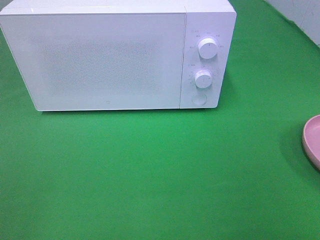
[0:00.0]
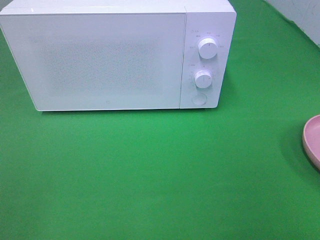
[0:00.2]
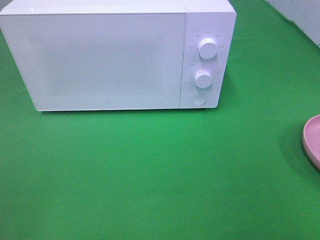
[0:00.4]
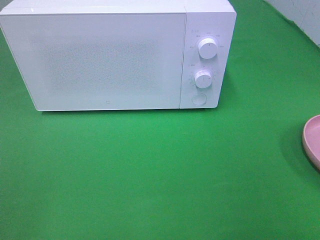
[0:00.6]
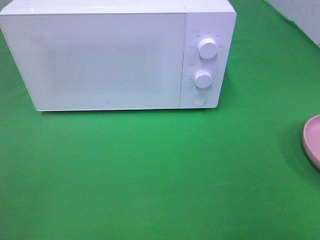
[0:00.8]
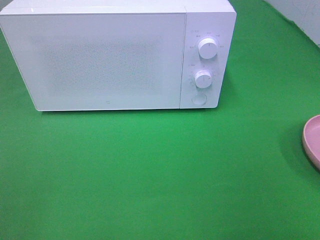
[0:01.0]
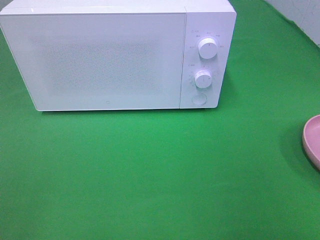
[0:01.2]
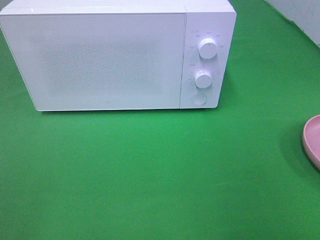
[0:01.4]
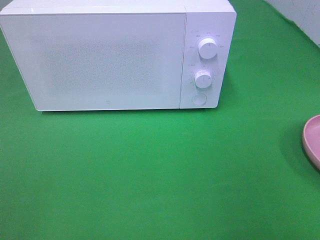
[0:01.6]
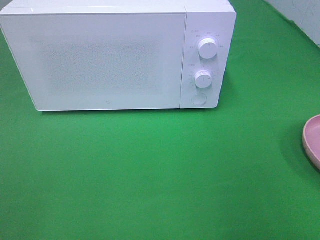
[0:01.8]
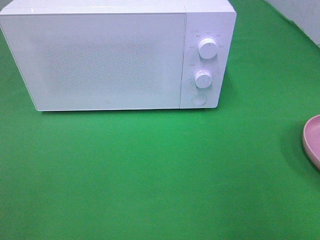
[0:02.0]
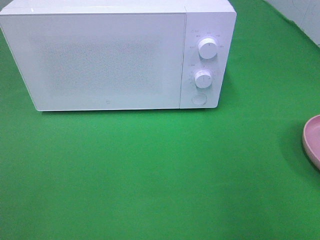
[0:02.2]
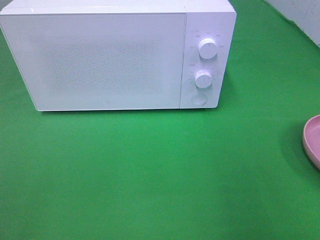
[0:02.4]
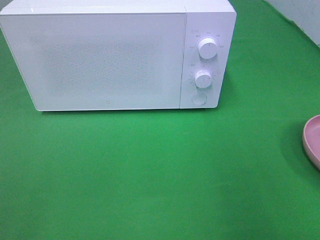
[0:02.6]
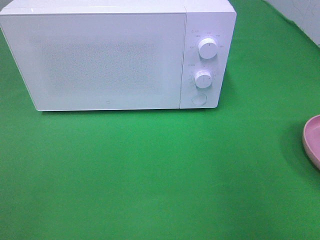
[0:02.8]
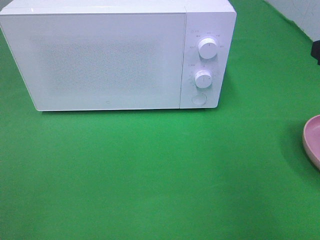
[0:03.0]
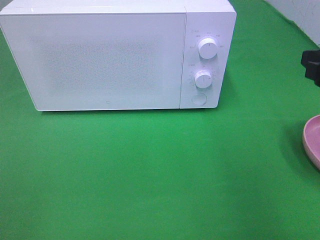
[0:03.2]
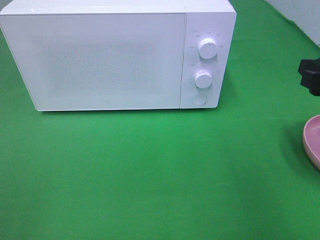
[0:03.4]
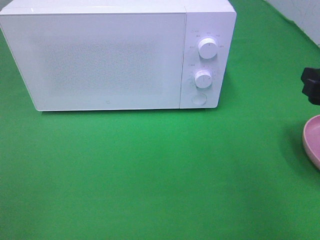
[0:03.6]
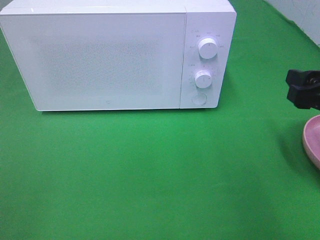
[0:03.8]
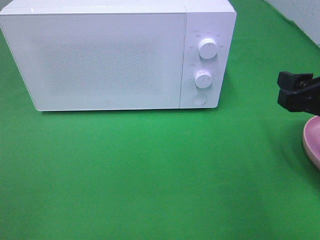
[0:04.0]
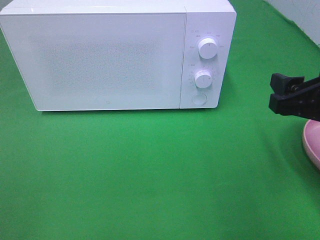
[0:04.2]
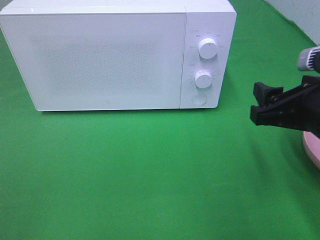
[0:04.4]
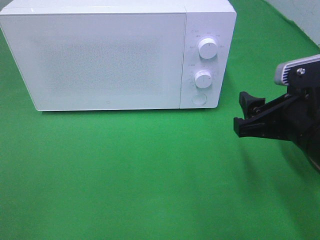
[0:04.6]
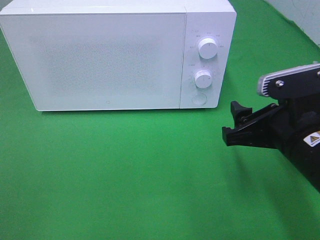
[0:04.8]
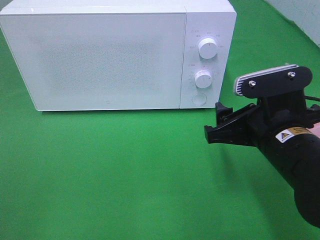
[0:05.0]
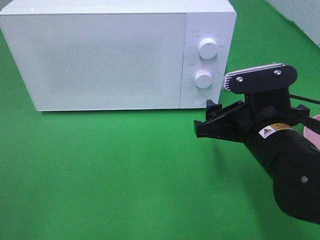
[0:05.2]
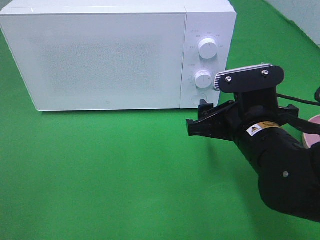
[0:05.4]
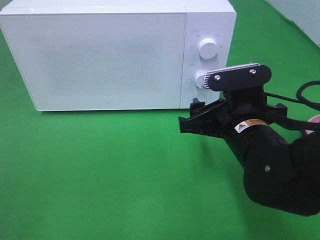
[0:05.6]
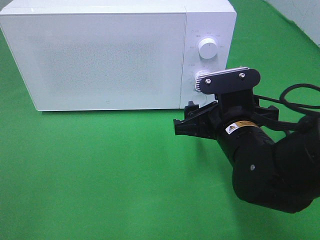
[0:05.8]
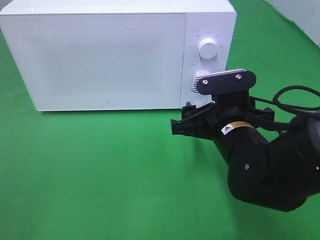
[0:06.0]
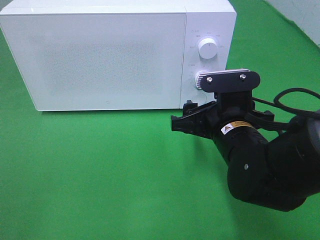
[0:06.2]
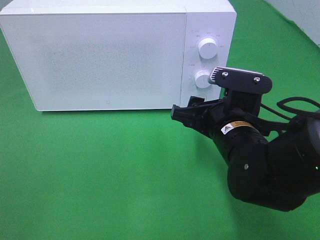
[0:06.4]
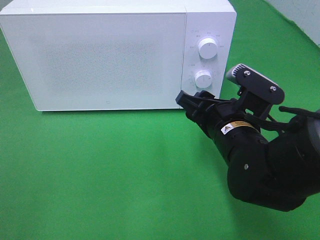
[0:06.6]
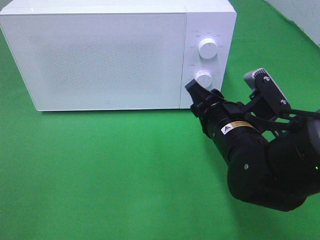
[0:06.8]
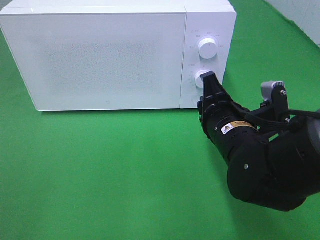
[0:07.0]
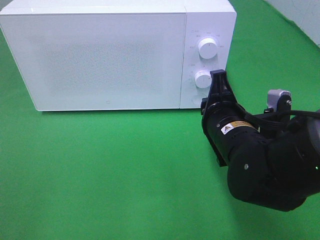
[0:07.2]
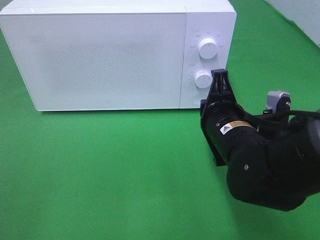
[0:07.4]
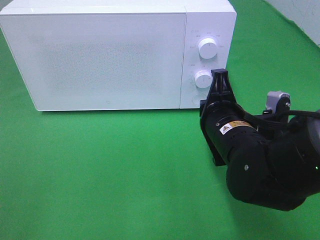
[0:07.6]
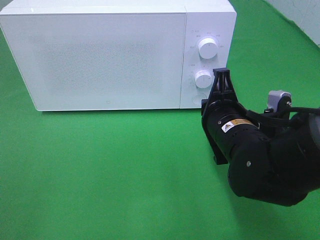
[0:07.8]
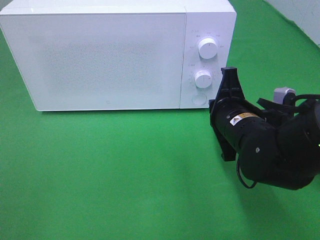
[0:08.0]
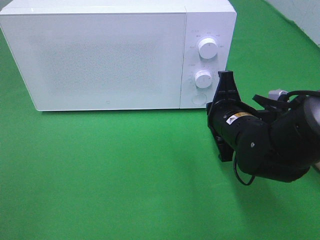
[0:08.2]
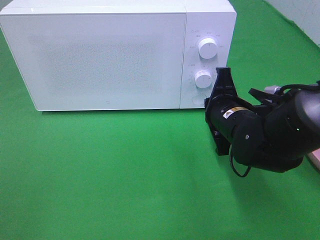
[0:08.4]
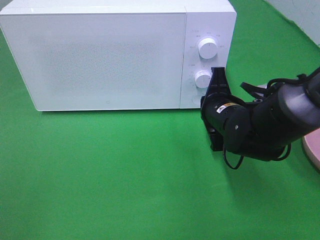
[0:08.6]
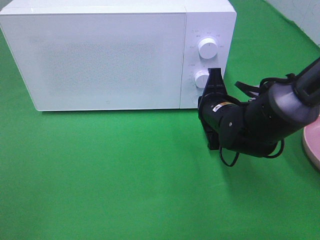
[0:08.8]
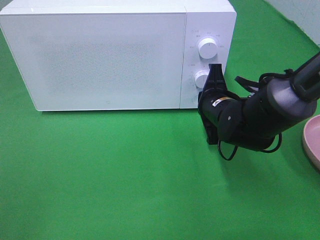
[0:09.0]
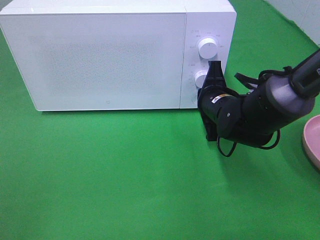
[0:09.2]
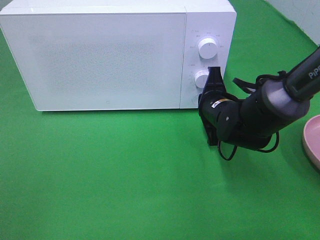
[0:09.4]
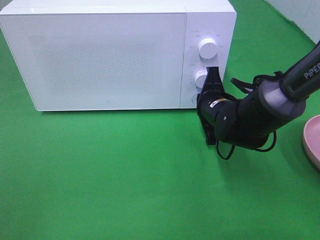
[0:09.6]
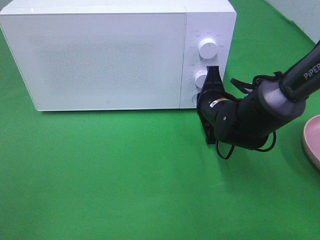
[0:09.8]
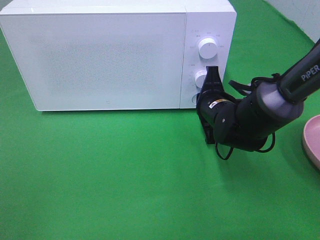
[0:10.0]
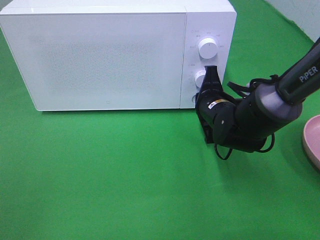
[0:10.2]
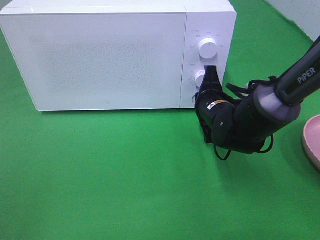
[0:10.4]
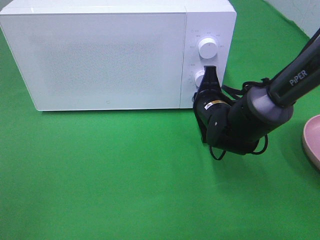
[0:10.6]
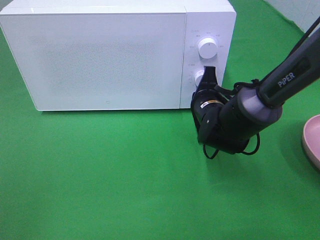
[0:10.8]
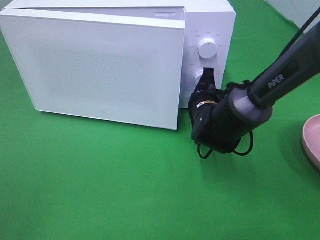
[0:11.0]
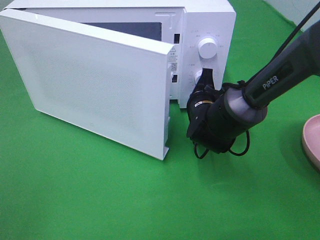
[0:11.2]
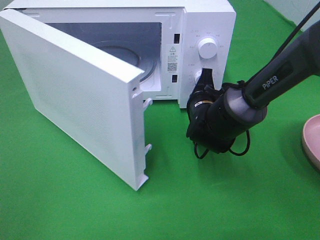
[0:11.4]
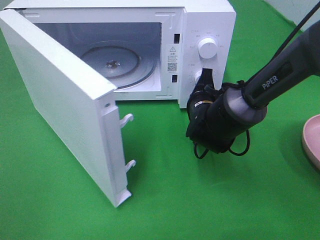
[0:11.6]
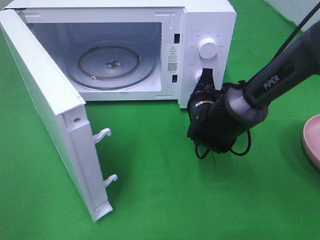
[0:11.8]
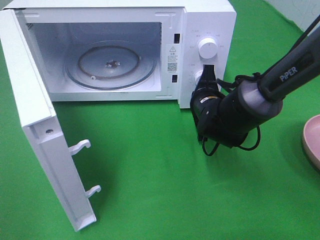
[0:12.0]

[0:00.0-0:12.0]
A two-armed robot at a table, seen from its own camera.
Task of the whole recording: Heat the burger.
0:03.0 to 0:04.4: The right gripper shifts some 10 cm downward and to the left.
0:04.4 to 0:06.0: The right gripper travels to the left and downward by approximately 10 cm.
0:06.0 to 0:07.6: The right gripper closes.
0:07.6 to 0:09.0: The right gripper shifts some 10 cm forward.
0:09.0 to 0:10.4: There are only small adjustments of the grippers.

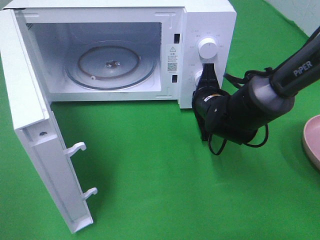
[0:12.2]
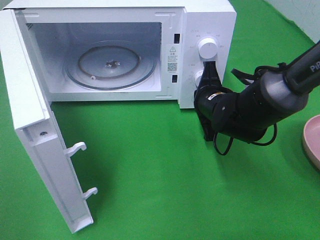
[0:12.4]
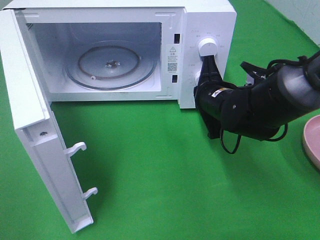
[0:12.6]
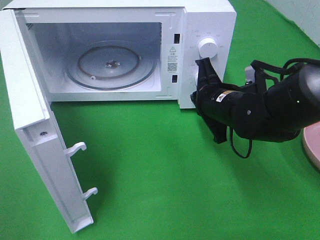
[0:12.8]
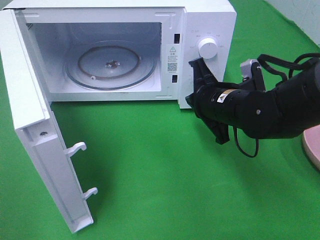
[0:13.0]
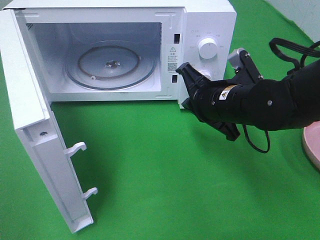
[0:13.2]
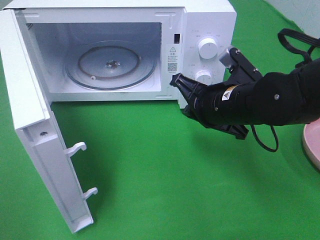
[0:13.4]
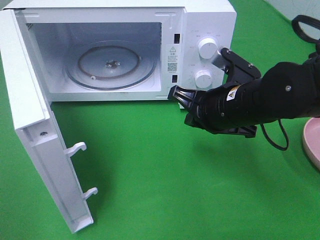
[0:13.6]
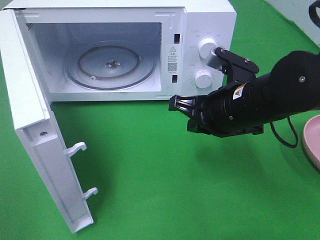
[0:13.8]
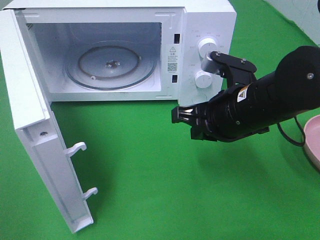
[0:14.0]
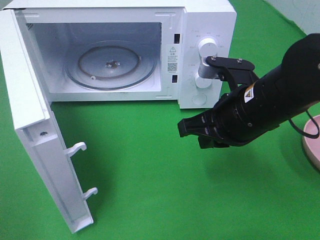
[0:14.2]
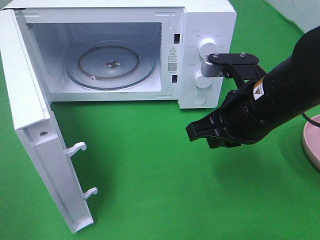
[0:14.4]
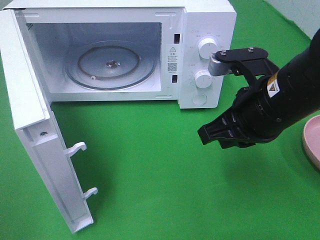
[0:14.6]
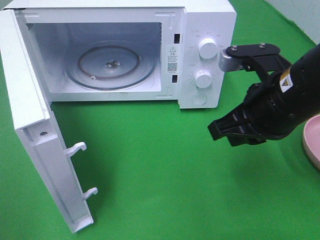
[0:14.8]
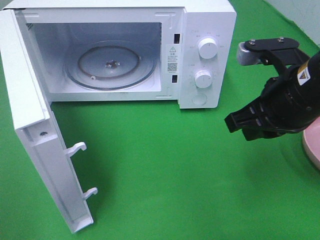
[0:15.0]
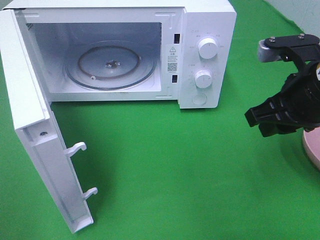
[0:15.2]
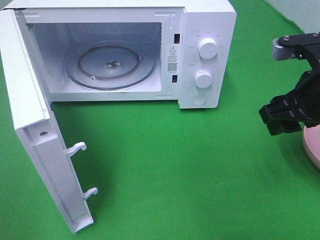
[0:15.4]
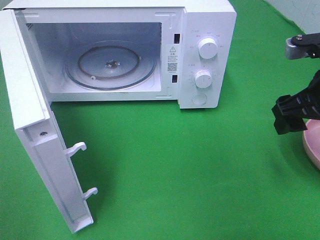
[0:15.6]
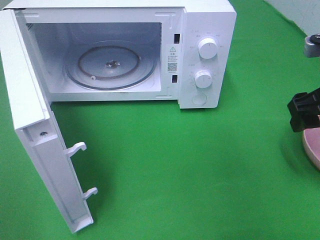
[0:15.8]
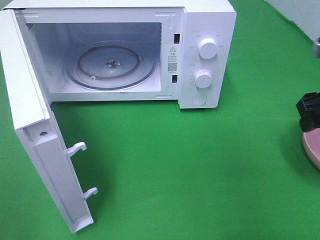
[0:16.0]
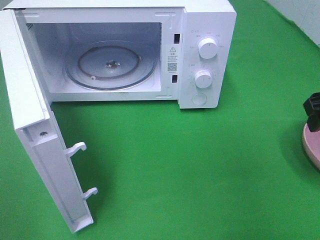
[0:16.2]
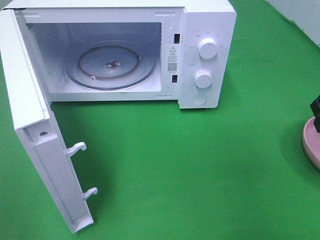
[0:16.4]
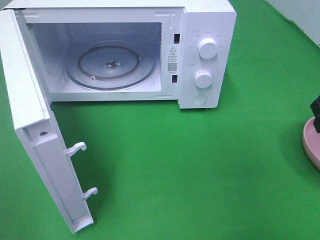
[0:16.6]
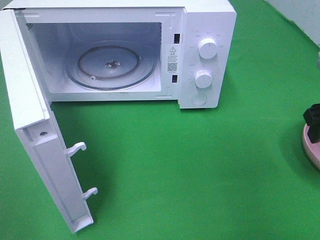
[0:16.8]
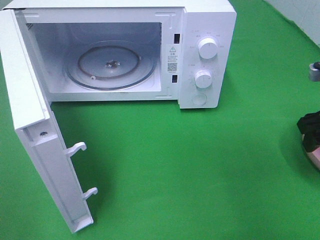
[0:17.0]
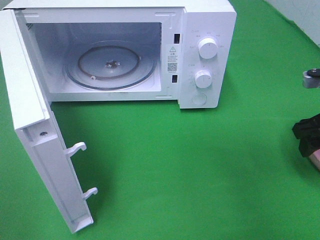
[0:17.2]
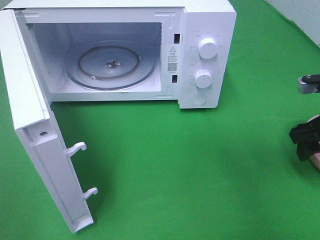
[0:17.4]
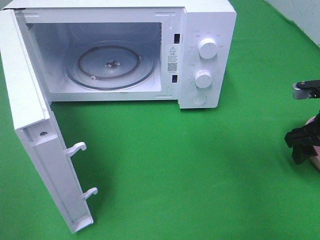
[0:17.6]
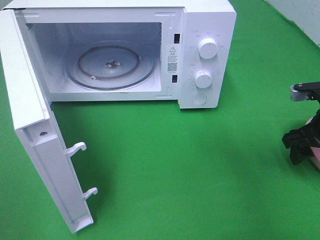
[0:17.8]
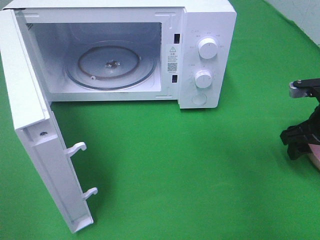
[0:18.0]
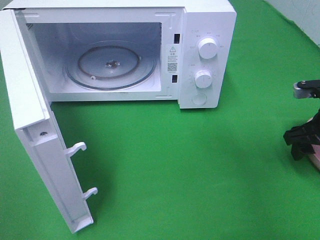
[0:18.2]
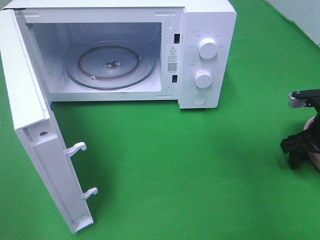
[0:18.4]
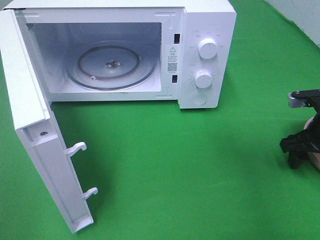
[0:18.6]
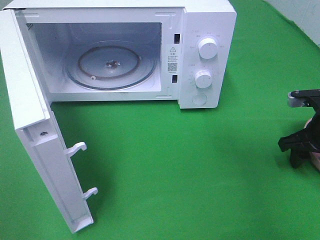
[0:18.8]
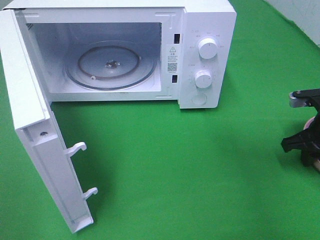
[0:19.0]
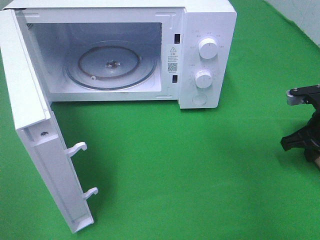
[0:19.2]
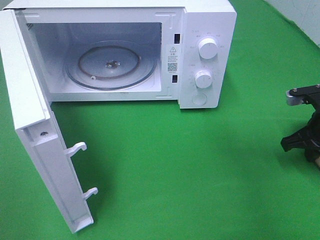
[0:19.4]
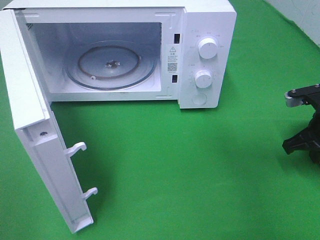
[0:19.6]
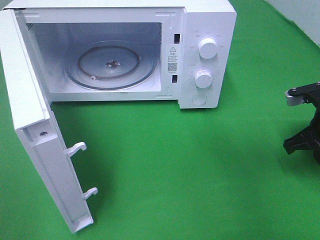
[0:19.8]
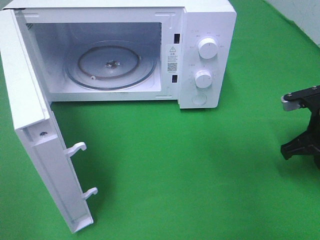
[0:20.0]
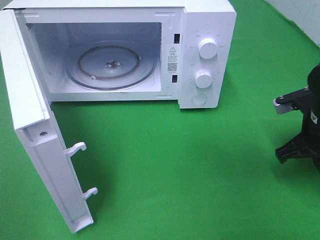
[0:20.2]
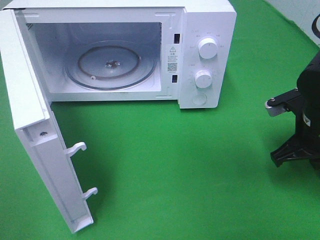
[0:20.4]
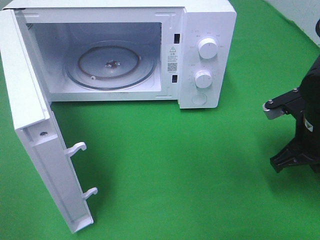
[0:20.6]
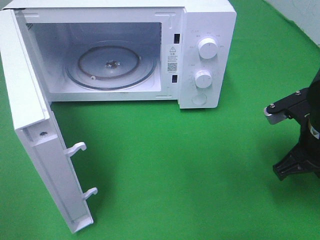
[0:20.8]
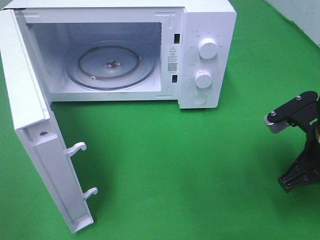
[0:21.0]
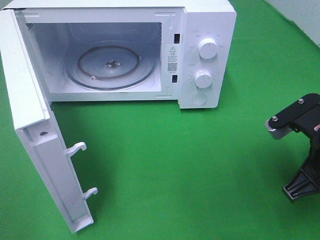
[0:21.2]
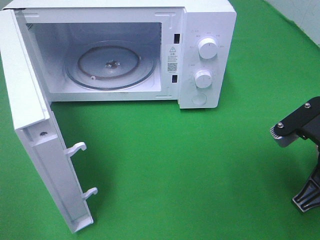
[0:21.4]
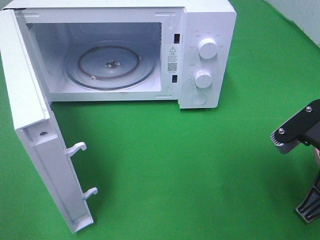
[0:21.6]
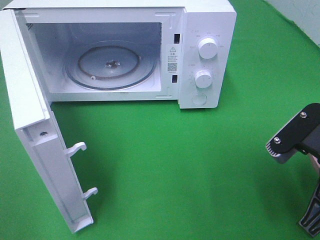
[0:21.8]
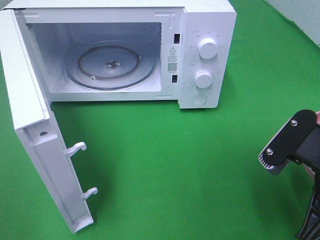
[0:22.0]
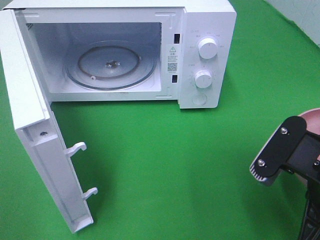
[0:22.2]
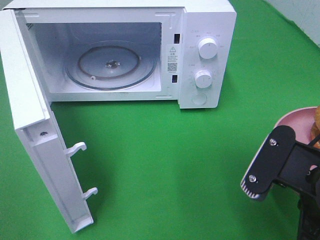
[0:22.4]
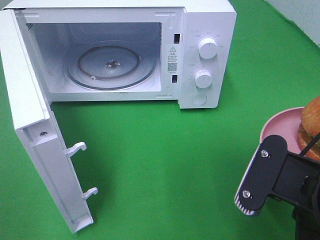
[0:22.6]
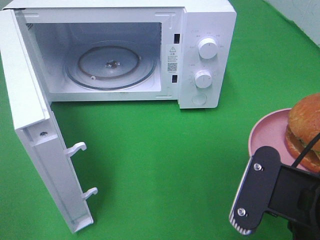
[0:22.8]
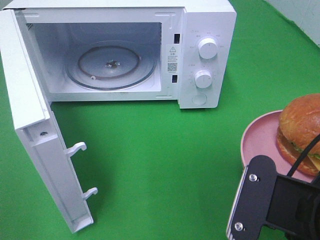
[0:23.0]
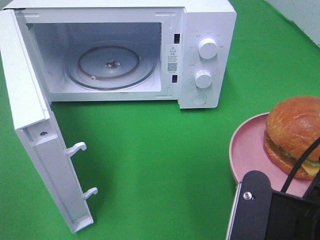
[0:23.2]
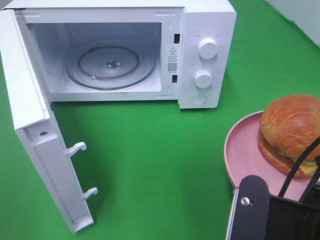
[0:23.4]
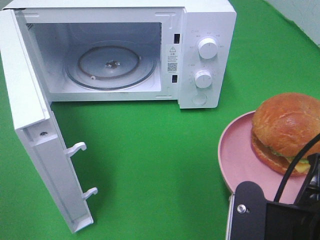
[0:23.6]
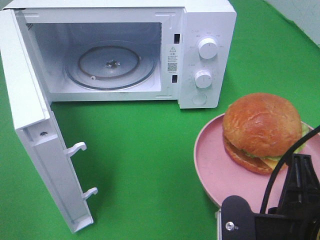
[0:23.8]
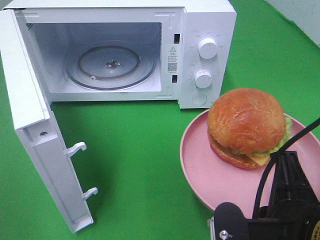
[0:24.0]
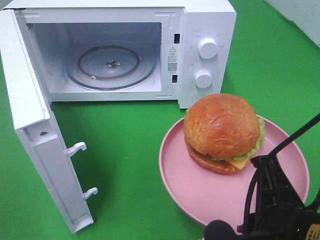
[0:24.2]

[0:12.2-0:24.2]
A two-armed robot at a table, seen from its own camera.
Task of the whole recording: Heat the burger.
Step, 0:12.8 to 0:19.2: Right hand: grab the plate with the hamburger.
0:12.2 to 0:13.8: The right gripper moves backward and upward, about 10 cm.
0:13.8 to 0:15.2: The right gripper goes approximately 10 cm to the right and upward, and opens its fingers.
0:15.2 to 0:16.6: The right gripper shifts roughly 10 cm to the right, and opens its fingers.
0:16.6 to 0:18.2: The right gripper moves downward, about 10 cm.
0:18.2 to 0:19.8: The right gripper closes up.
0:19.8 to 0:21.2: The right gripper moves backward and to the left, some 10 cm.
0:21.2 to 0:22.6: The right gripper is displaced backward and to the left by some 10 cm.
0:22.6 to 0:24.2: The right gripper shifts by some 5 cm.
